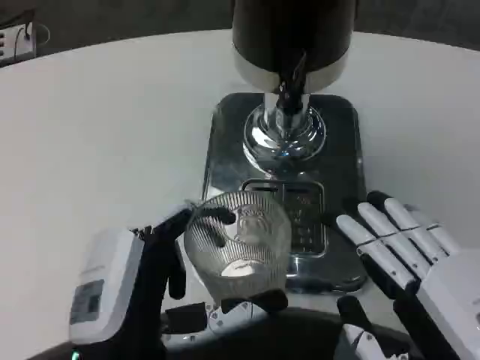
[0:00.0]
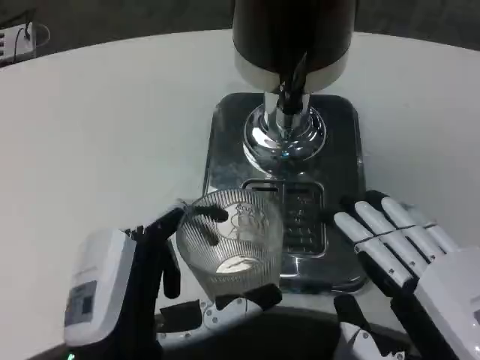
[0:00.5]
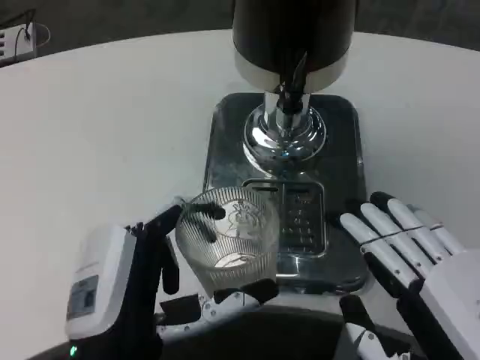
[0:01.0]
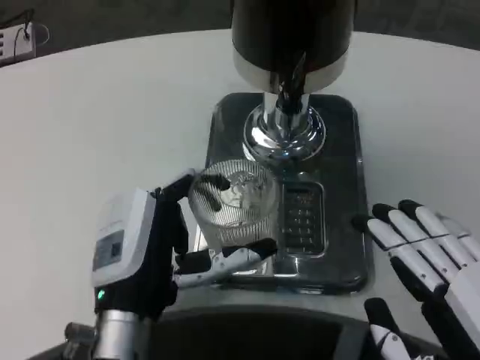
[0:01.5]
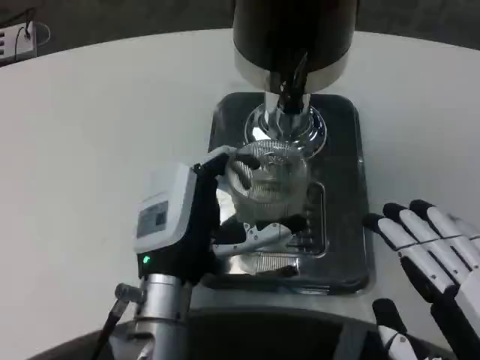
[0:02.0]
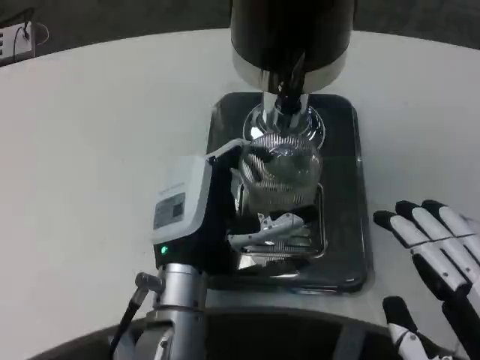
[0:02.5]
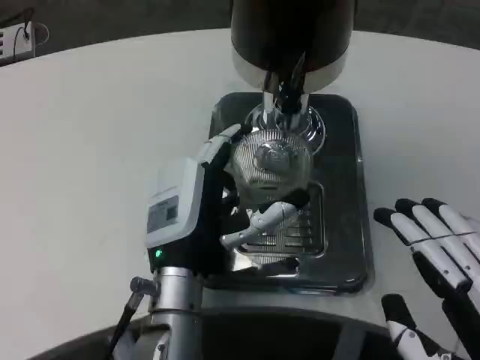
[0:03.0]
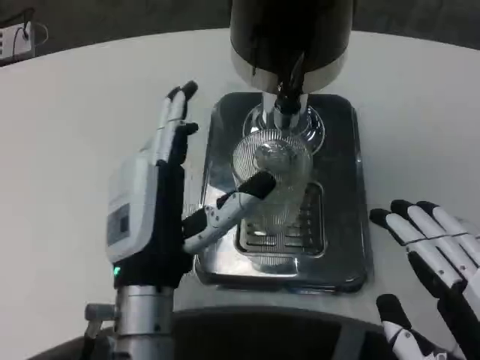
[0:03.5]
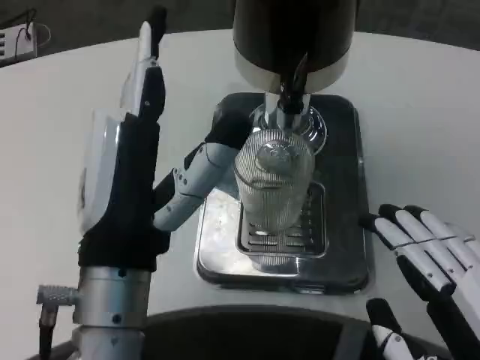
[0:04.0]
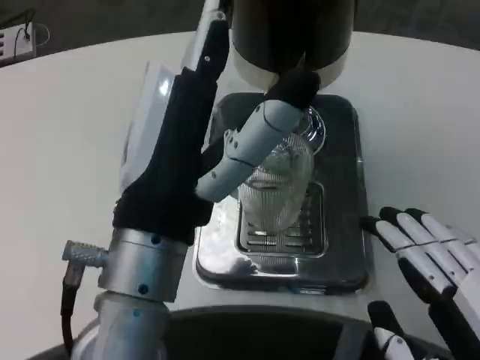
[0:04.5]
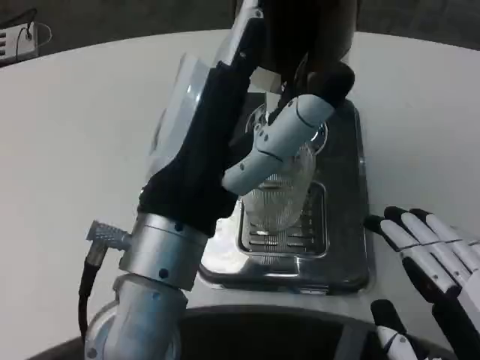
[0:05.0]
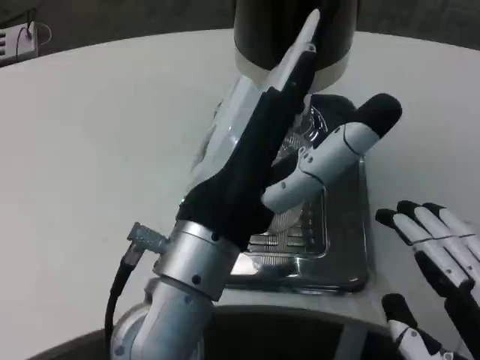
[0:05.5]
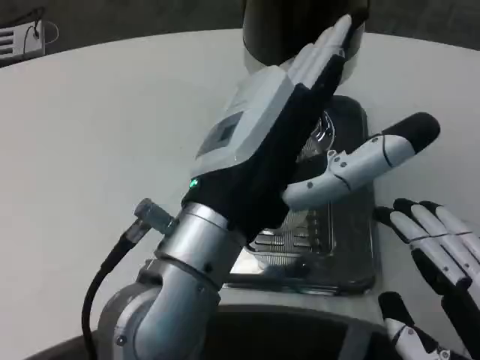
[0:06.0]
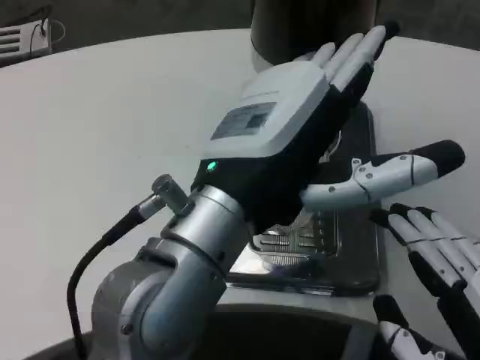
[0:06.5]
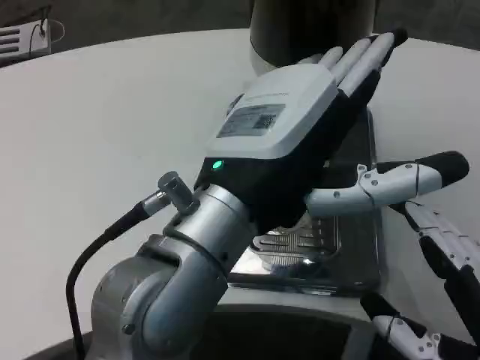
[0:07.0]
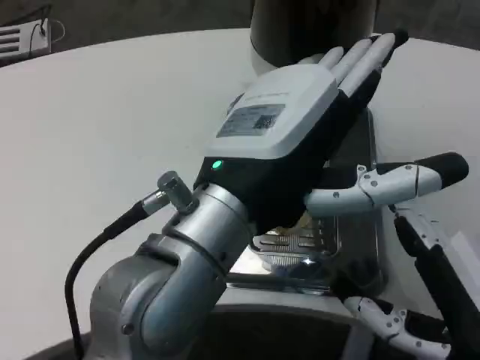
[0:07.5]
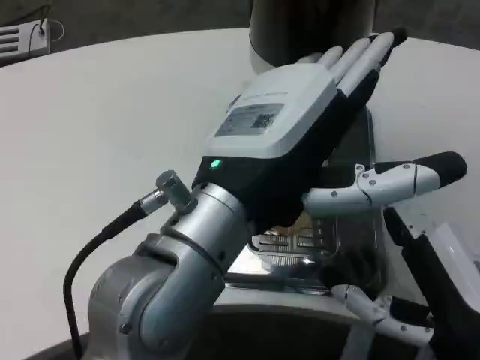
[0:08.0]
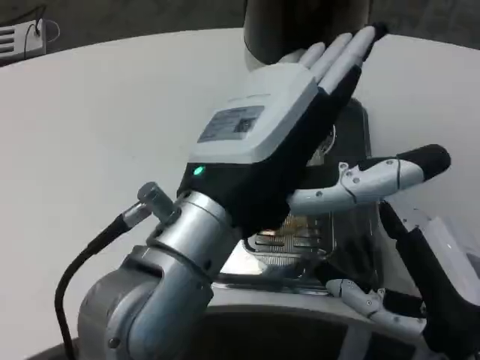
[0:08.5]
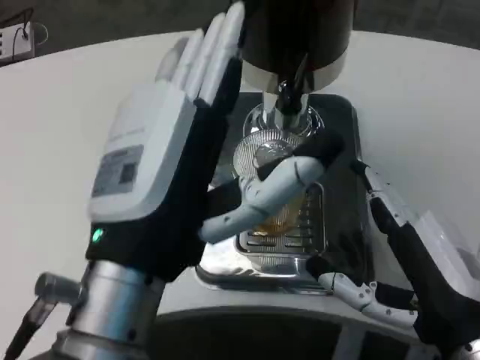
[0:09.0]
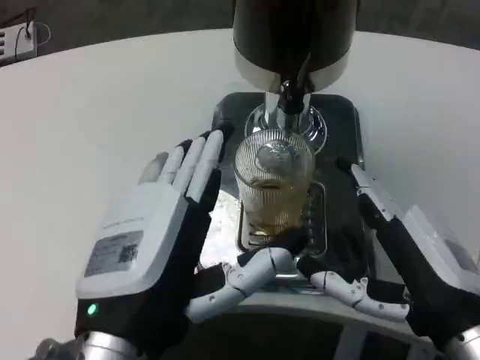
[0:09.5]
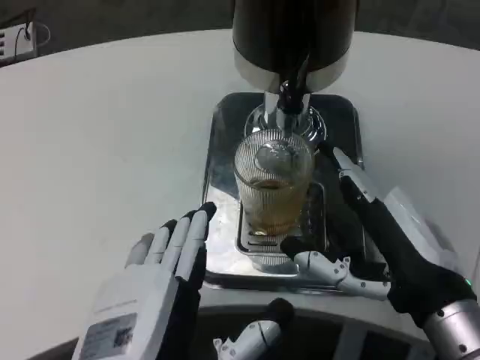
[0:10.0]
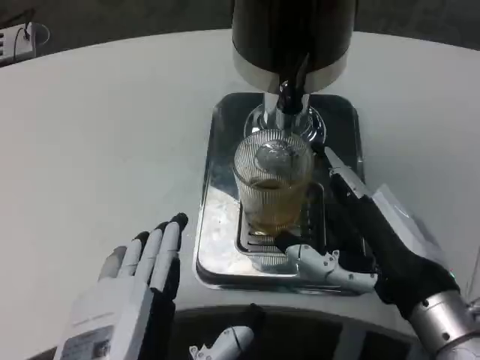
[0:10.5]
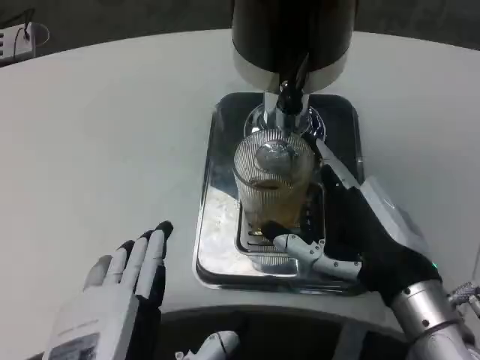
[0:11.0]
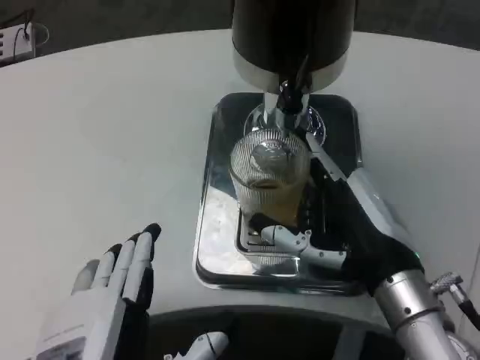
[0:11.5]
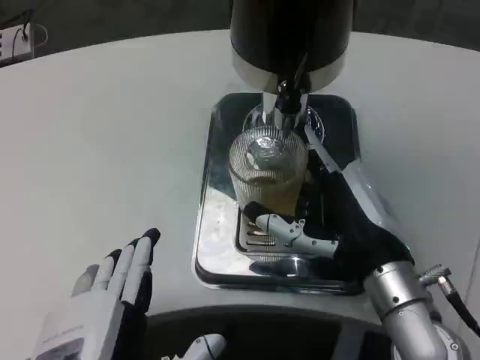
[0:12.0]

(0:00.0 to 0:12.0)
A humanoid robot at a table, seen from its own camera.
Task of the whole recording: Grasp the cup under the faucet to collect the drink, then remove the cup.
0:00.0 - 0:02.0: The left hand moves forward, about 10 cm.
0:02.0 - 0:04.0: The left hand moves backward and upward, about 10 cm.
0:04.0 - 0:06.0: The left hand goes about 5 cm upward.
0:06.0 - 0:08.0: The right hand is displaced forward by some 5 cm.
0:08.0 - 0:10.0: The right hand shifts by about 5 cm. Meanwhile the left hand goes approximately 15 cm downward and backward.
0:10.0 - 0:12.0: The right hand changes place by approximately 5 cm.

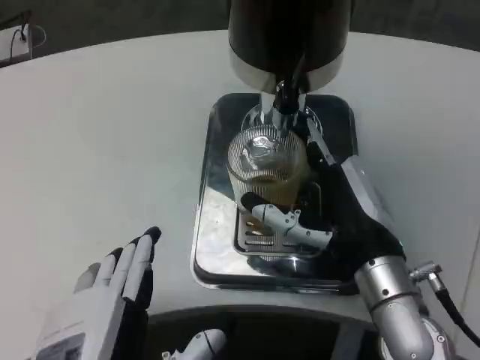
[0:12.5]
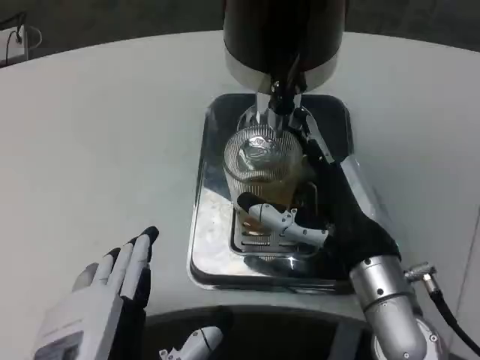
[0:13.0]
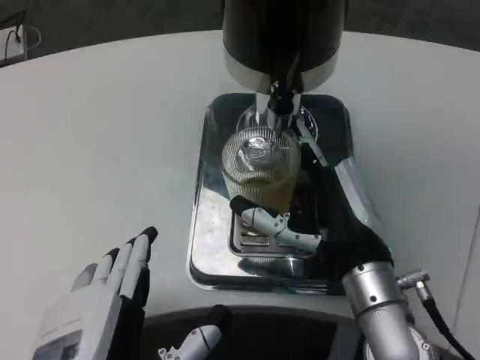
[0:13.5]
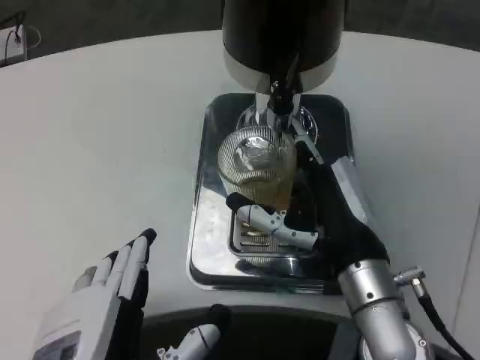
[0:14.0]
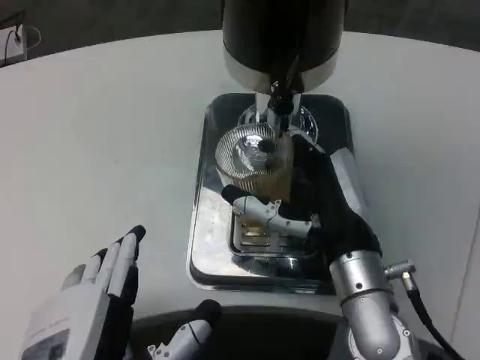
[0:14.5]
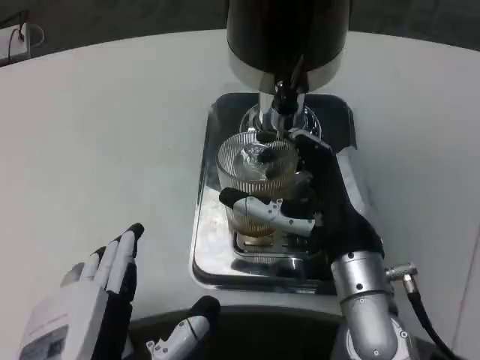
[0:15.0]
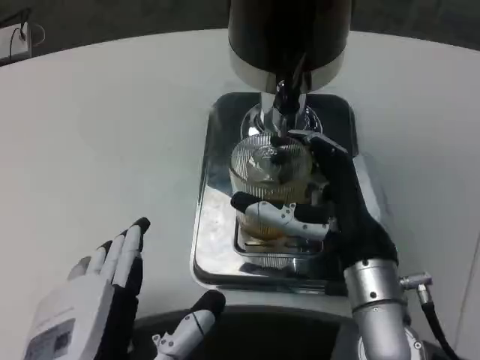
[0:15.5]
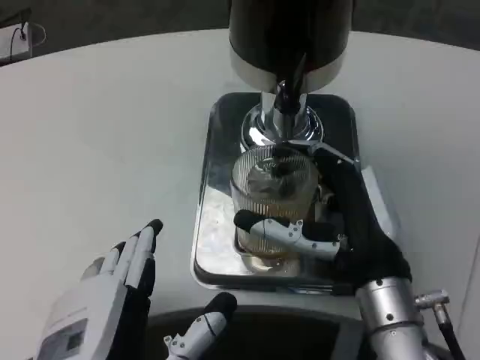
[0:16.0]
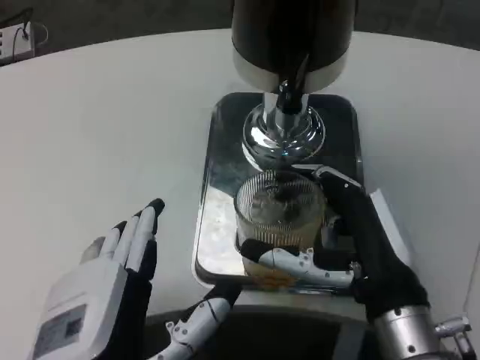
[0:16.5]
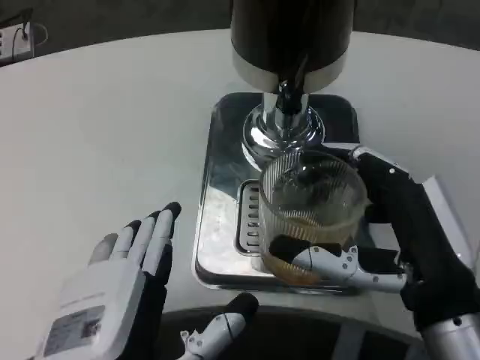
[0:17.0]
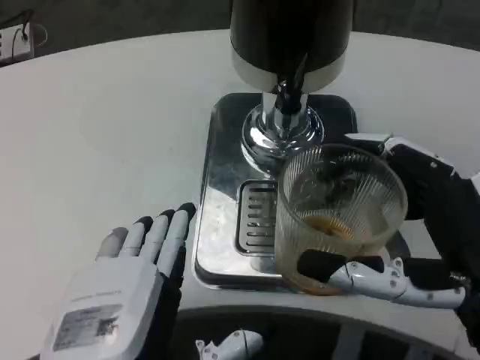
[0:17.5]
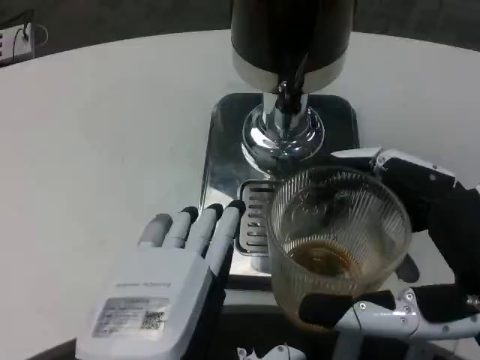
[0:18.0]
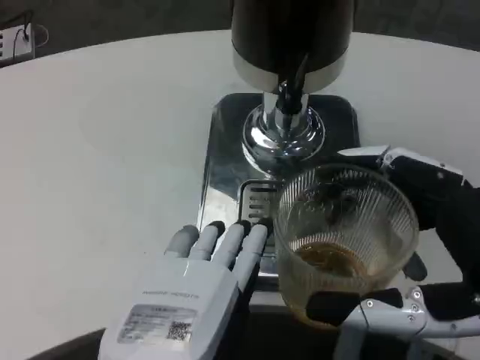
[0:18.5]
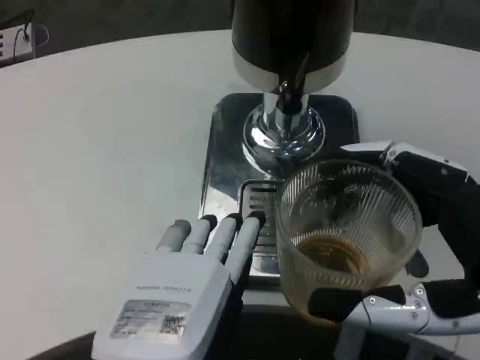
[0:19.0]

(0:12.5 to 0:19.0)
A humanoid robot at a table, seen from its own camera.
Task of the whole recording: Grasp the cup under the faucet to collect the drink, then remove the cup.
0:14.5 - 0:17.0: The right hand heads backward and to the right, covering some 10 cm.
0:17.0 - 0:19.0: The right hand moves backward, approximately 5 cm.

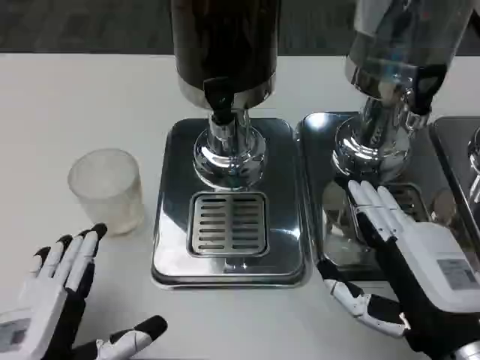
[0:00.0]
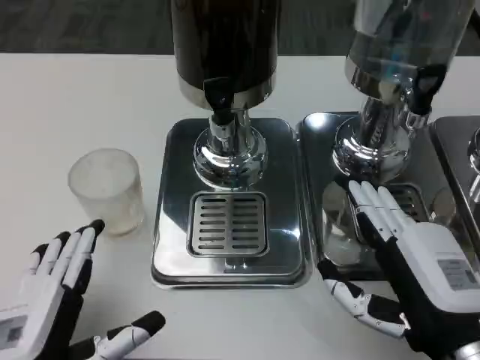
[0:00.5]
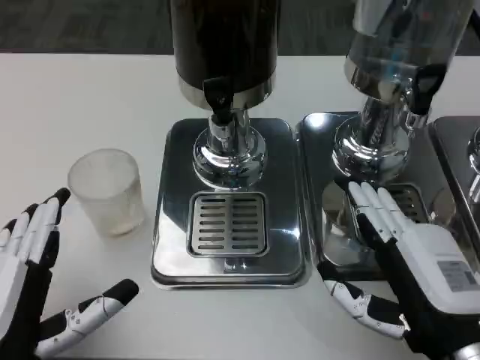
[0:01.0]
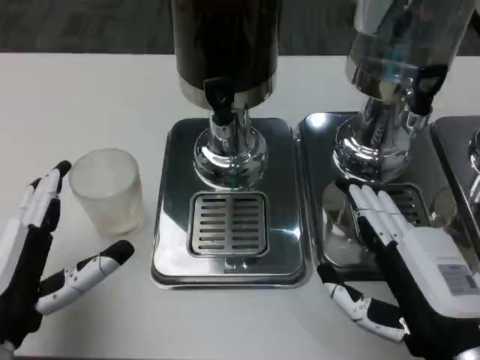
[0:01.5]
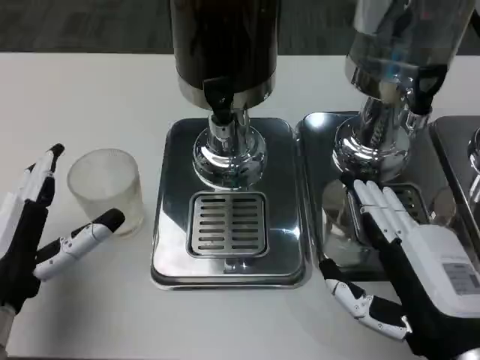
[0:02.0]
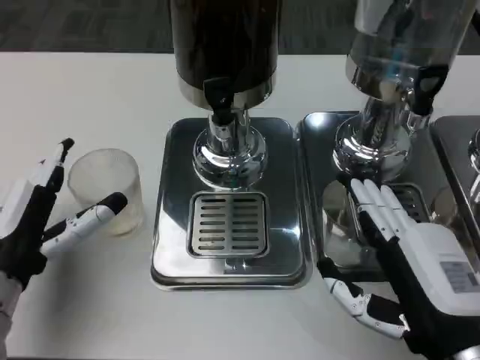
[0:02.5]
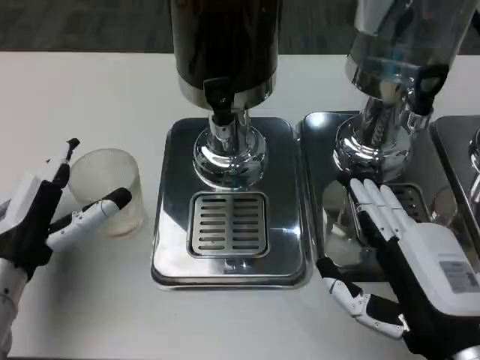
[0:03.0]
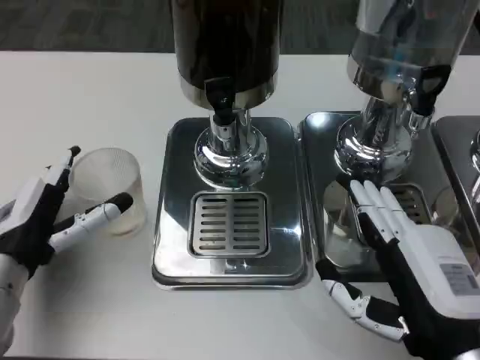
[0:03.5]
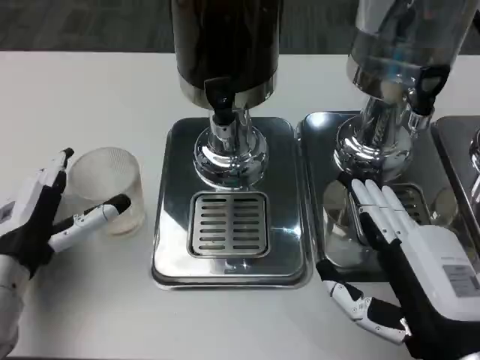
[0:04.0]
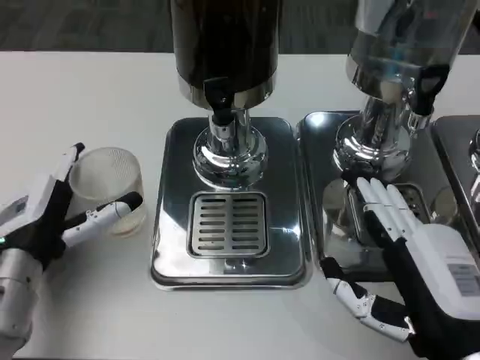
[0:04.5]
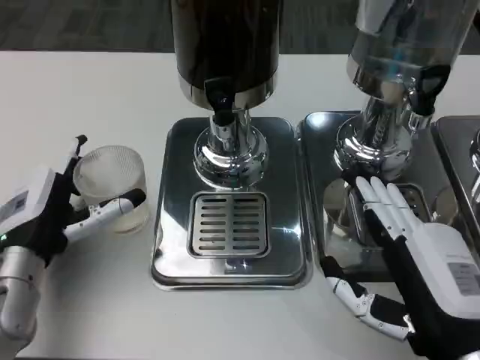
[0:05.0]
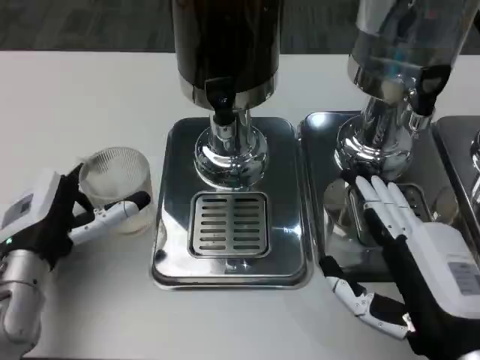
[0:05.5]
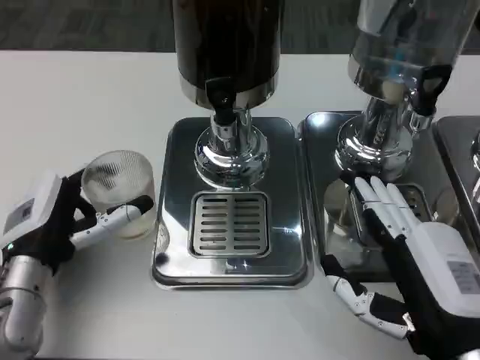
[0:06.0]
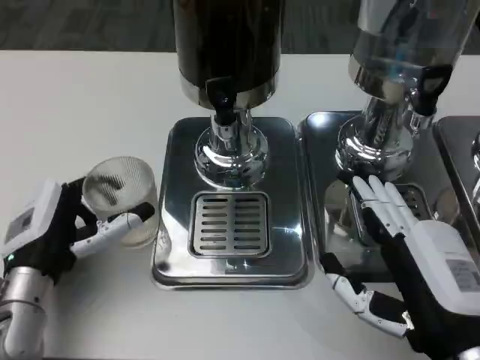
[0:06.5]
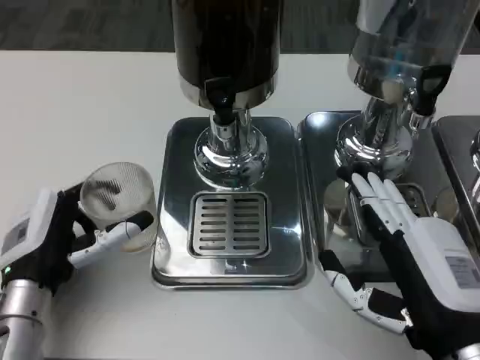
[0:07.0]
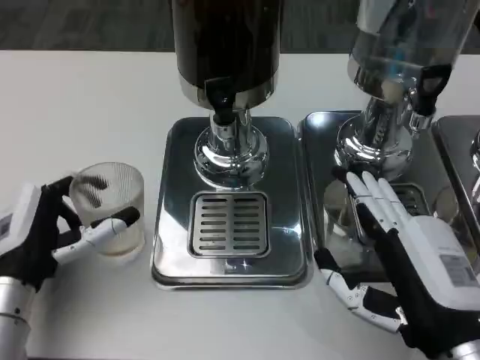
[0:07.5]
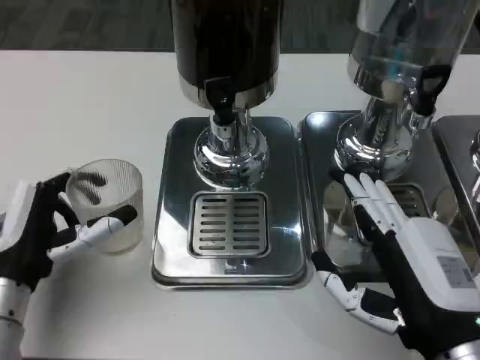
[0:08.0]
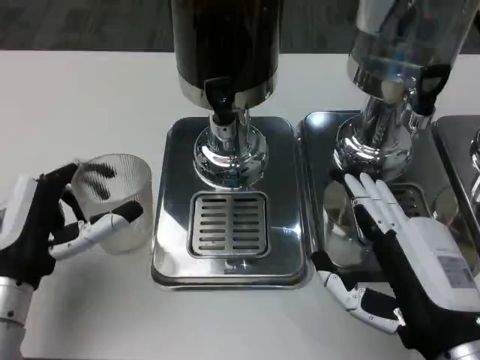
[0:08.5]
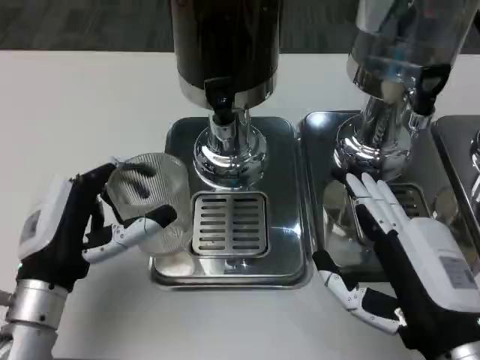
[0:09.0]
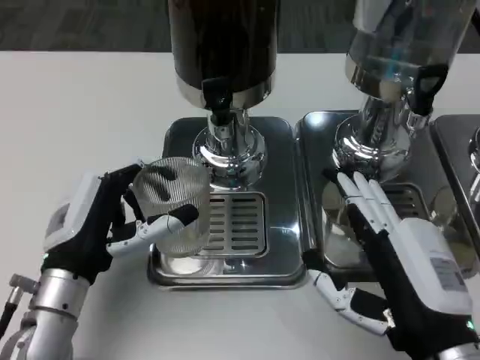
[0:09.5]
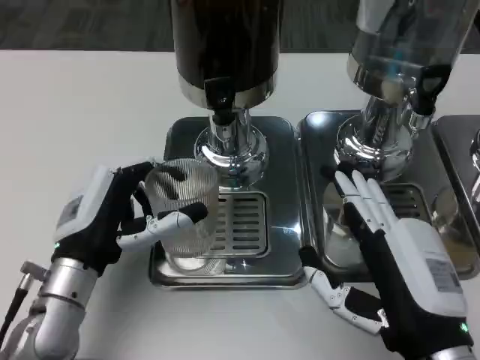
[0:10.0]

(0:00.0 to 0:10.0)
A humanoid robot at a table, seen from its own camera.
Task of the whole recording: Grasp the cup under the faucet to collect the drink, then remove the cup.
0:00.0 - 0:02.0: The left hand shifts some 10 cm forward.
0:02.0 - 0:04.0: The left hand goes roughly 5 cm forward.
0:04.0 - 0:08.0: The hands move only a little.
0:08.0 - 0:10.0: The left hand is displaced to the right by about 5 cm.
